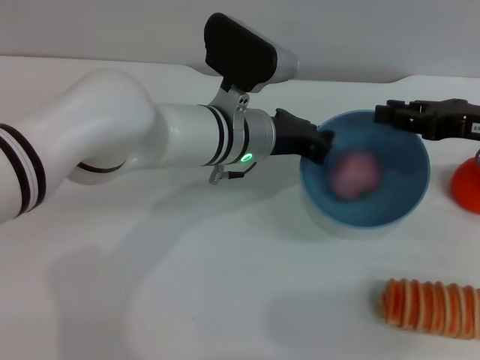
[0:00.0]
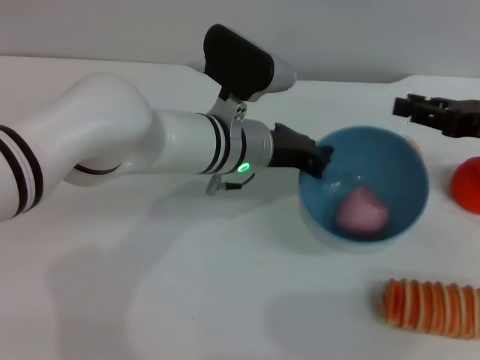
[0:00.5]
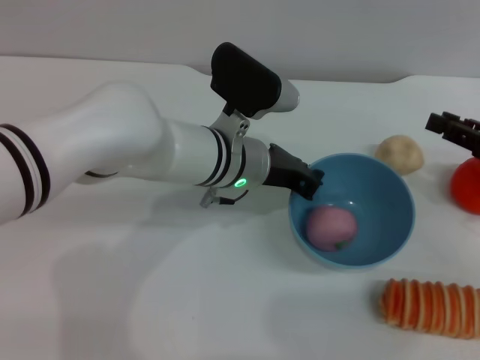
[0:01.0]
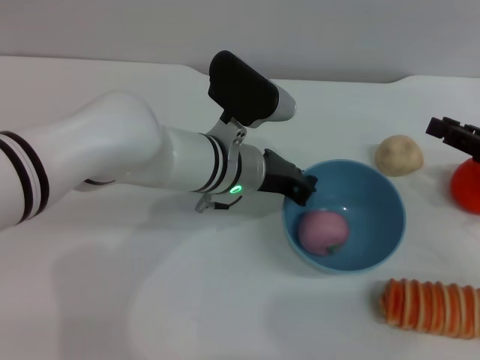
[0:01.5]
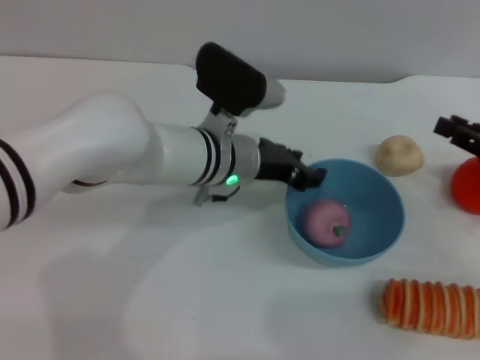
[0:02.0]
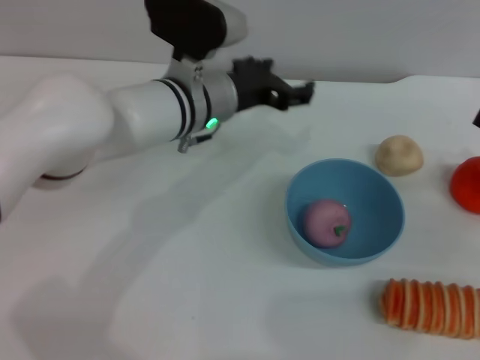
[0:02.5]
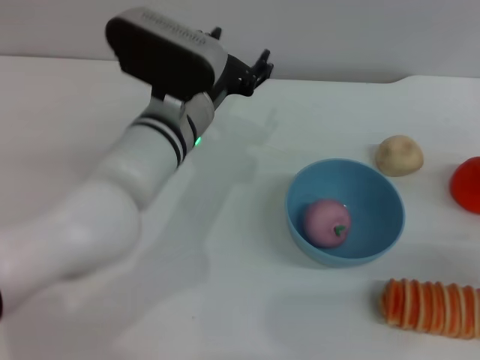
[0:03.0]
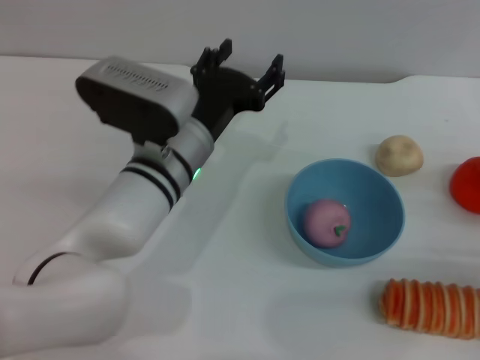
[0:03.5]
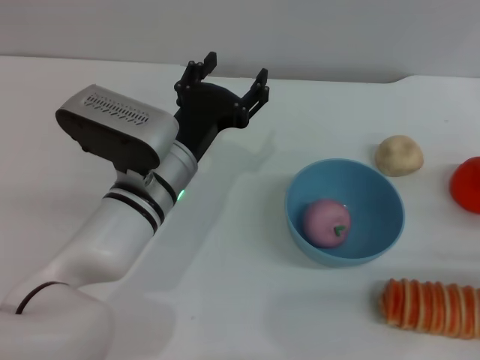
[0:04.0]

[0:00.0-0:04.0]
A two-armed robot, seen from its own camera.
Task of the whole recording: put the peach into the blue bowl and pour it out repeatedly.
Step, 0:00.5 to 0:02.0: Place the bowl on the table.
0:00.0 to 0:02.0: The left gripper opens its fingers, while the right gripper goes some 5 cm backward.
0:02.0 to 0:04.0: The left gripper is displaced backward by roughly 5 cm, and opens its fingers. Meanwhile the right gripper moves downward and backward, approximately 10 cm.
